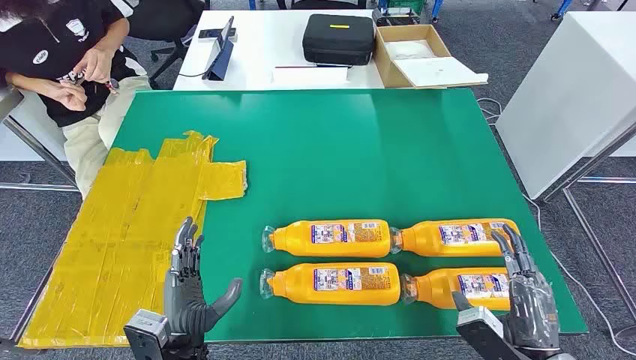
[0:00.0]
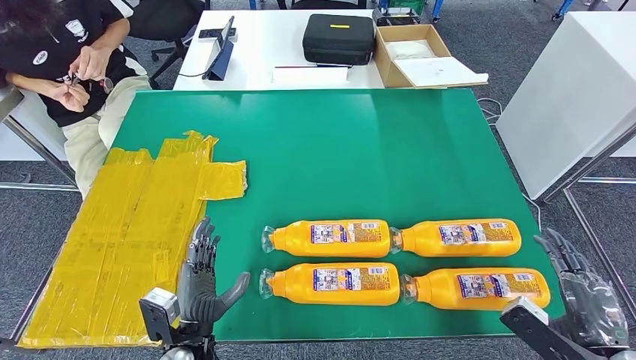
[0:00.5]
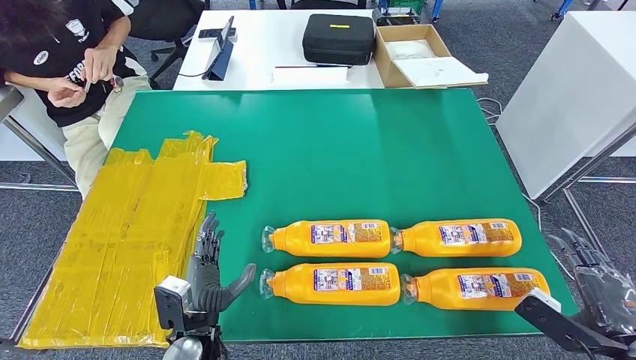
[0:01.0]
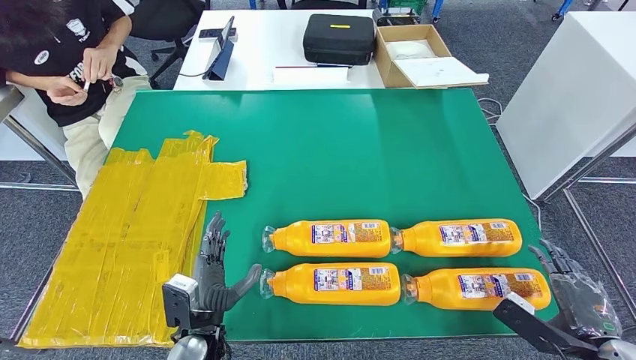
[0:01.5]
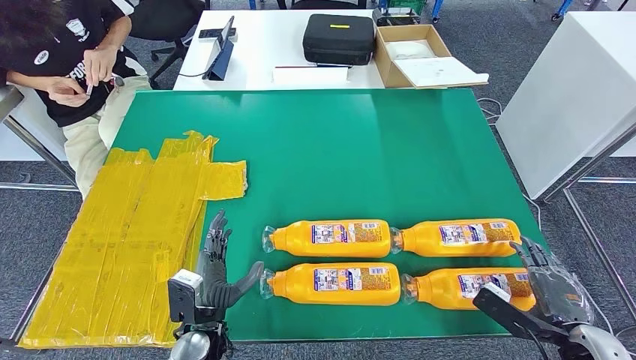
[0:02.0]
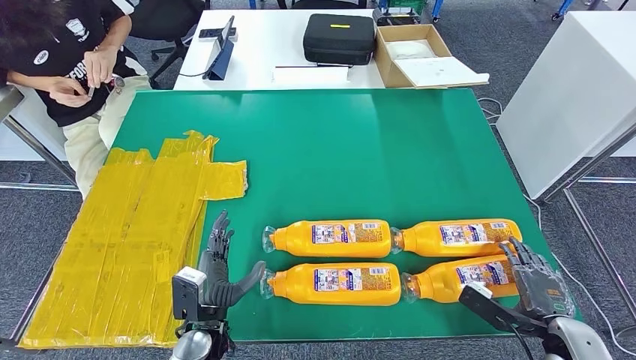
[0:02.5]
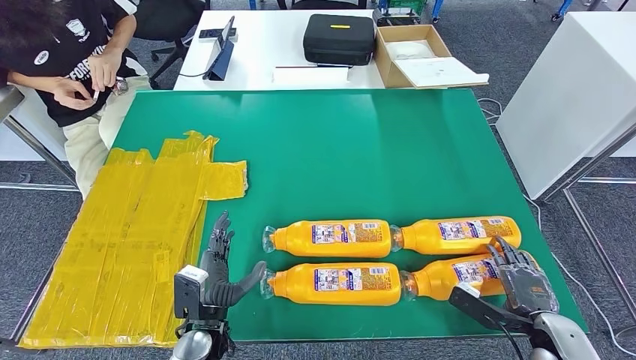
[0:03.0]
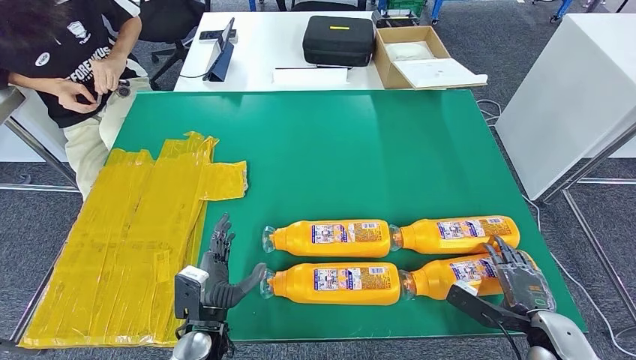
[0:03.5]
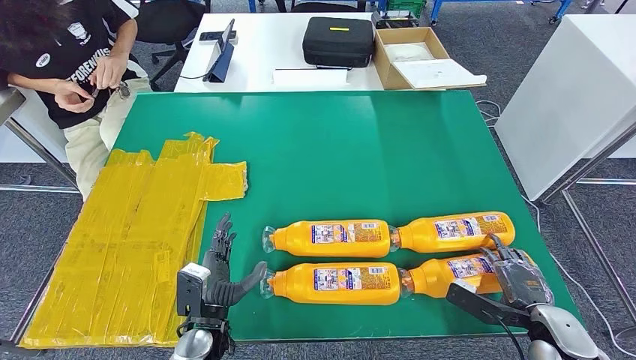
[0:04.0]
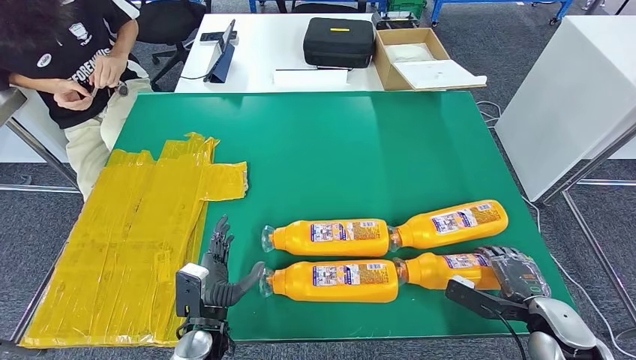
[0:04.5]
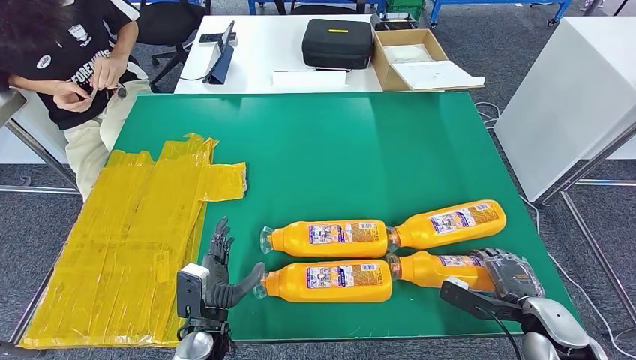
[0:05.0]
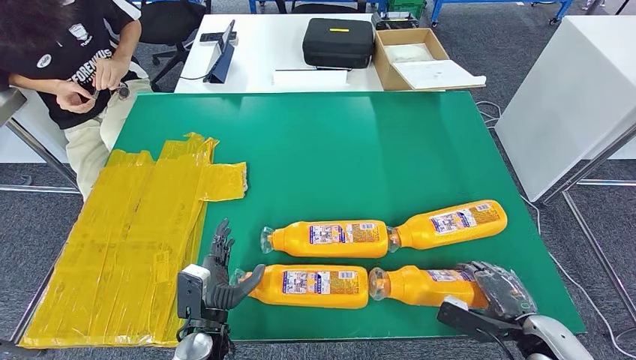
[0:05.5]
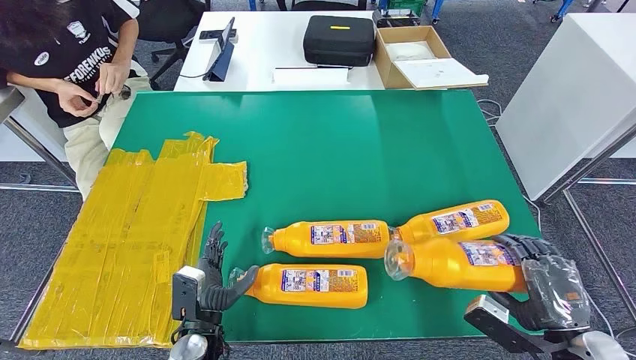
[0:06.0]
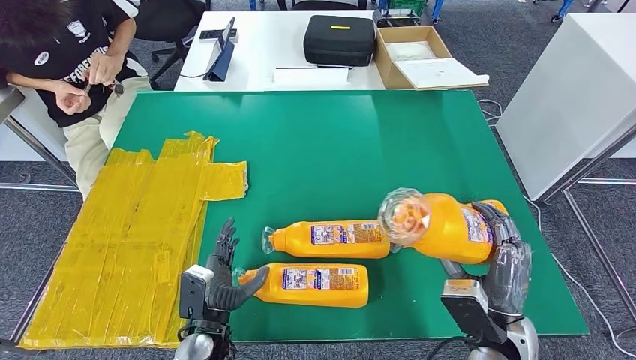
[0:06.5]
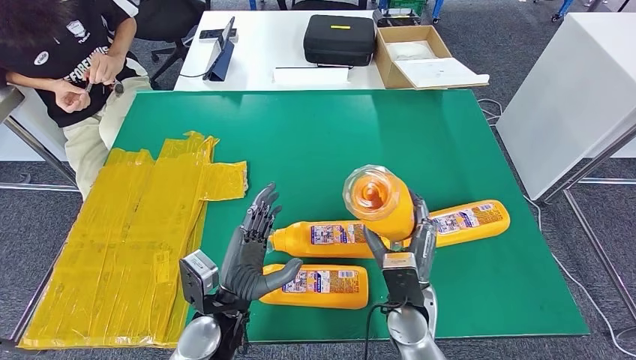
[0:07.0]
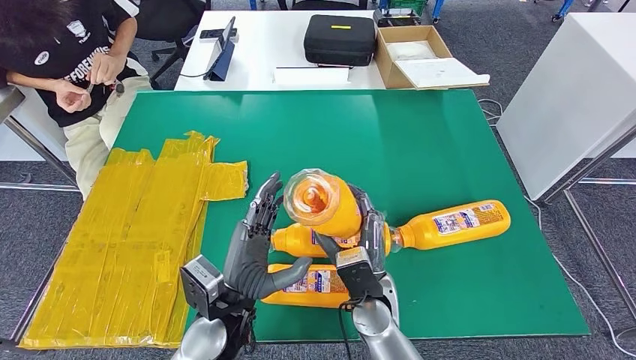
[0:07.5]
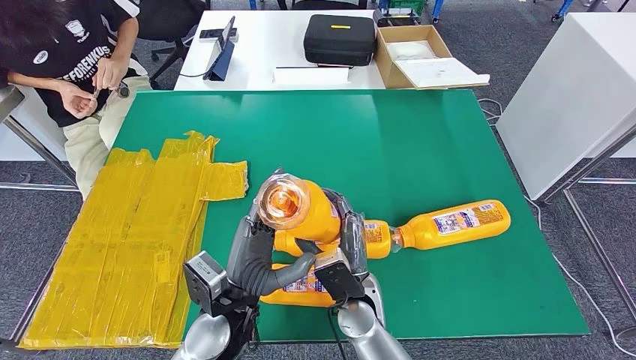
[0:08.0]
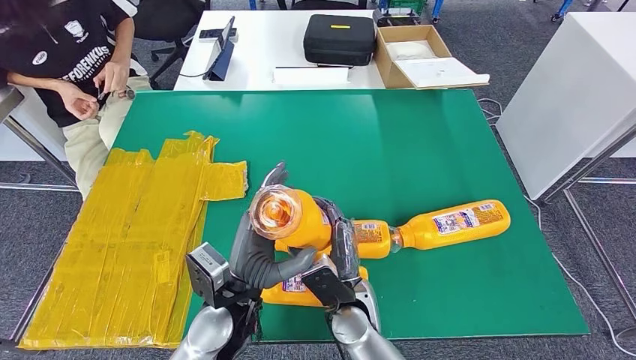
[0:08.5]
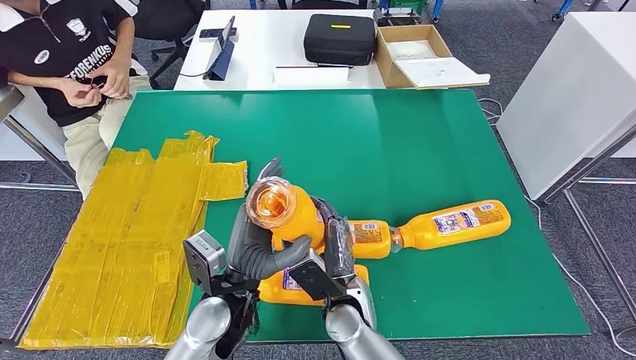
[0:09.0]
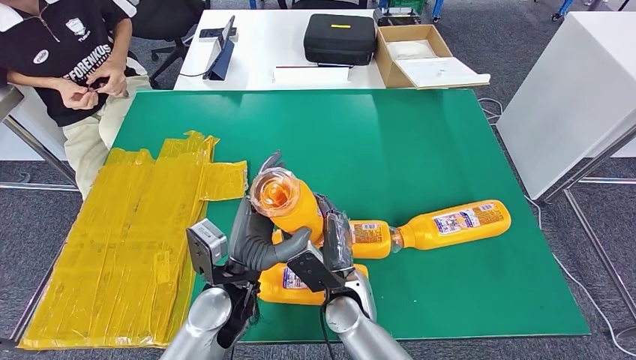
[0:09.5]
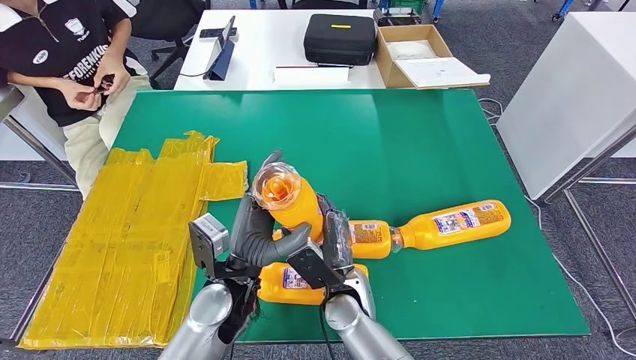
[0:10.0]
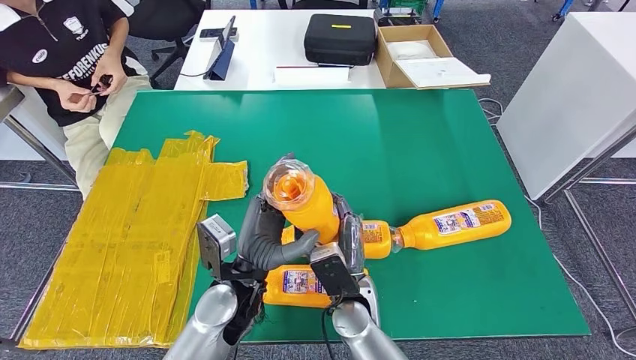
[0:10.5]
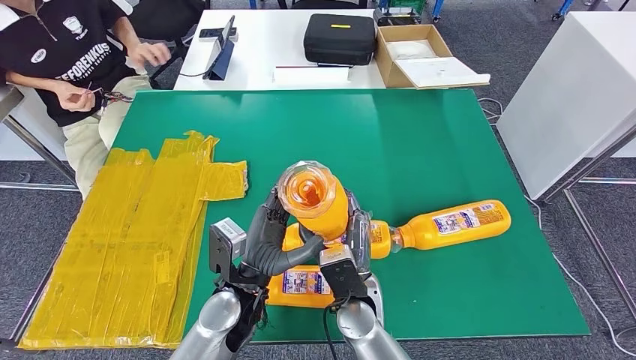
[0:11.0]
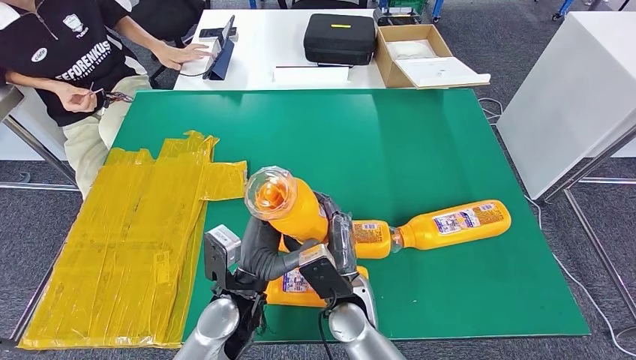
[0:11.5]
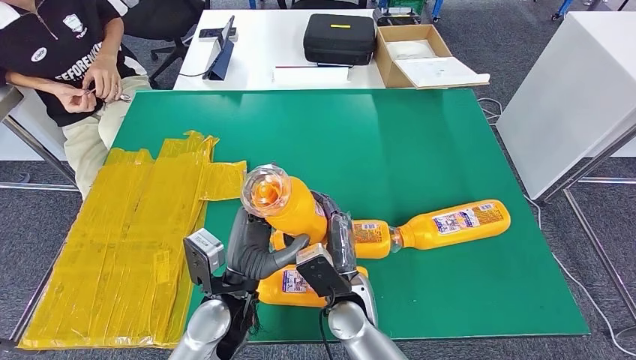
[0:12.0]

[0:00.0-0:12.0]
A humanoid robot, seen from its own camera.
Step, 0:00.0 to 0:07.0: Take the fast-moving consumer goods bottle from the table.
0:02.0 to 0:04.0: The right hand shifts by roughly 5 cm.
0:04.0 to 0:06.0: The right hand changes place by approximately 5 cm.
0:06.0 to 0:08.0: The left hand goes roughly 15 cm upward and to the right. The right hand moves to the left, approximately 35 cm.
0:08.0 to 0:12.0: There are only small adjustments of the hands.

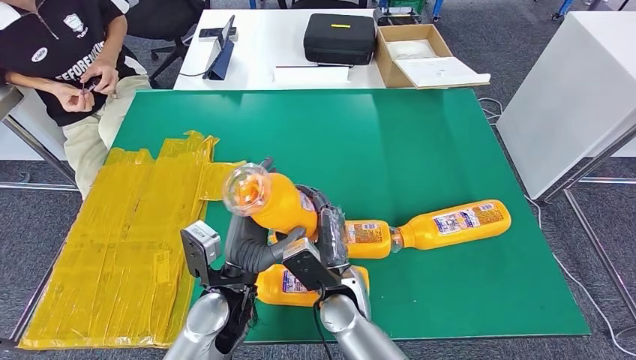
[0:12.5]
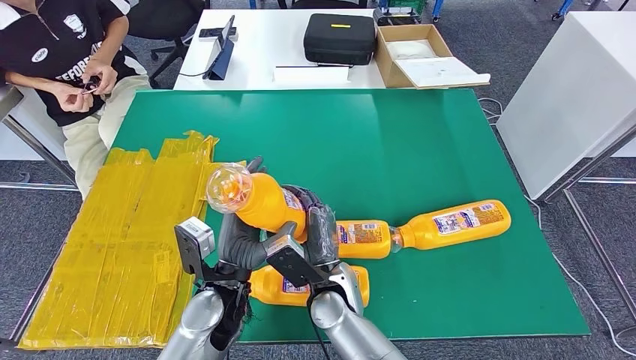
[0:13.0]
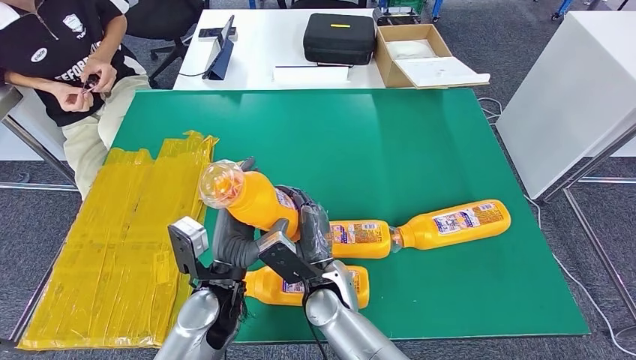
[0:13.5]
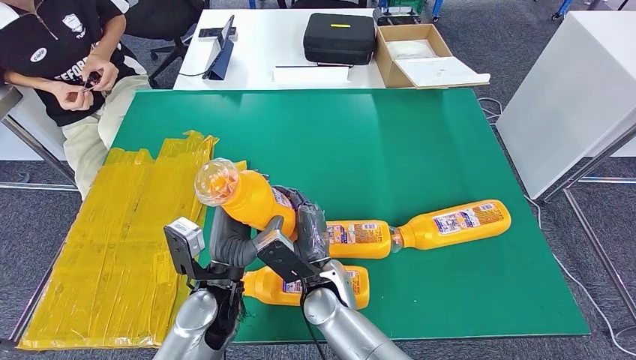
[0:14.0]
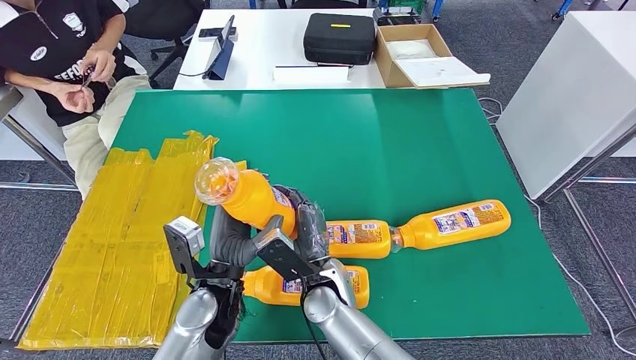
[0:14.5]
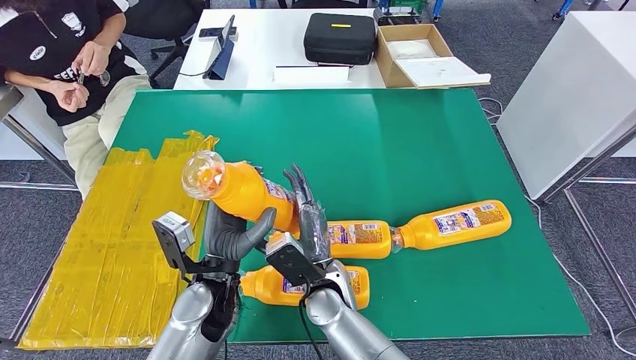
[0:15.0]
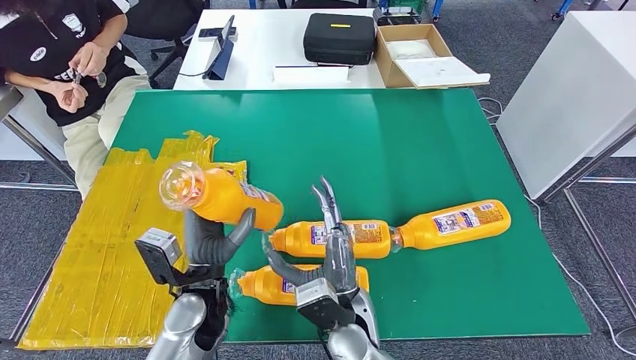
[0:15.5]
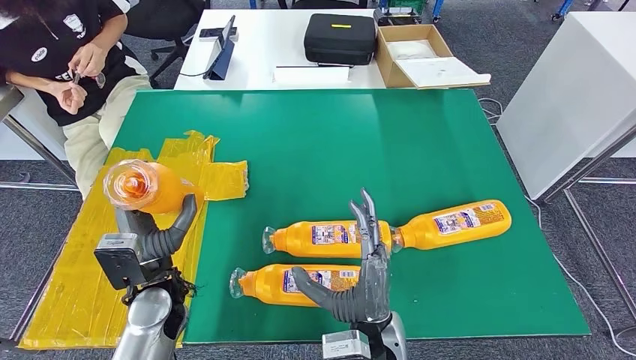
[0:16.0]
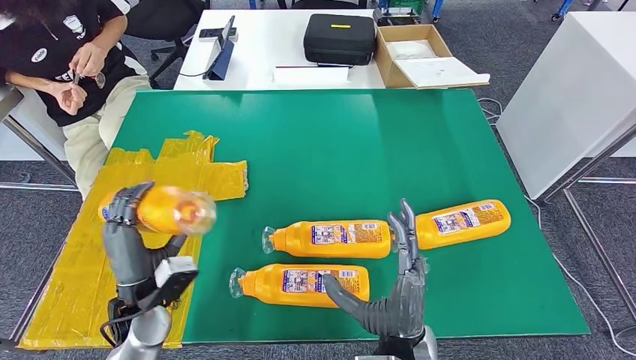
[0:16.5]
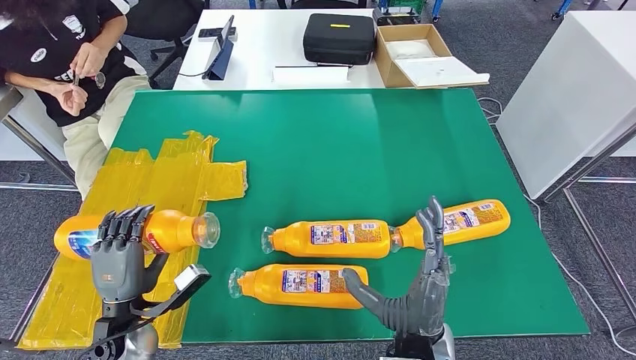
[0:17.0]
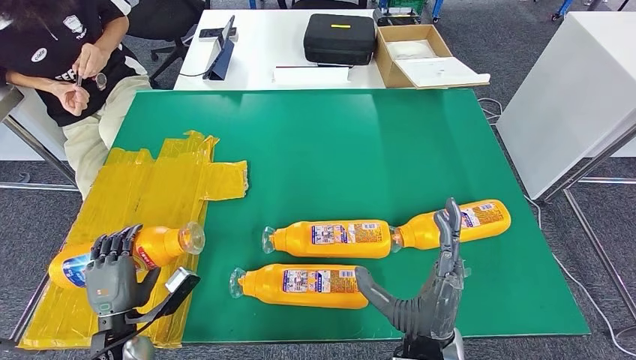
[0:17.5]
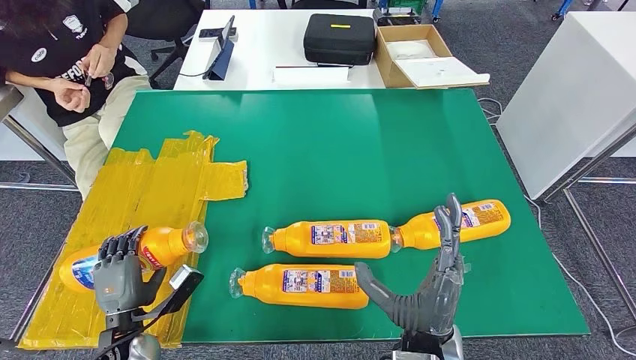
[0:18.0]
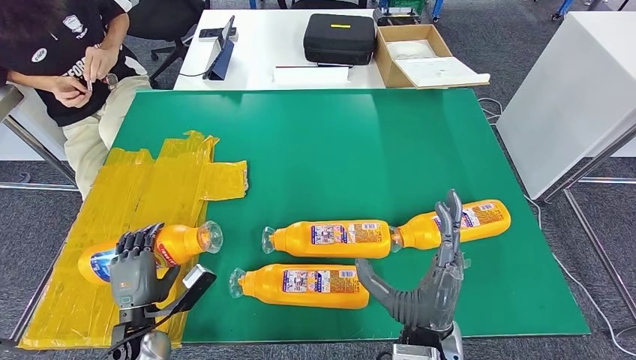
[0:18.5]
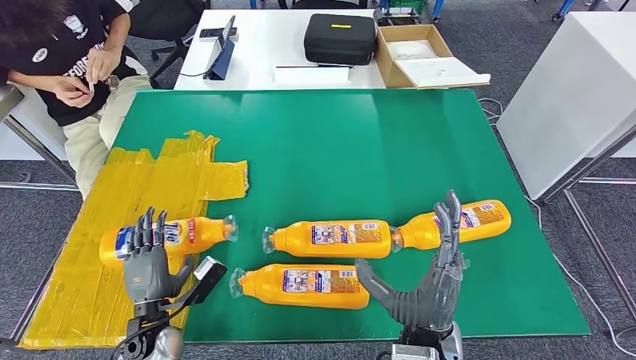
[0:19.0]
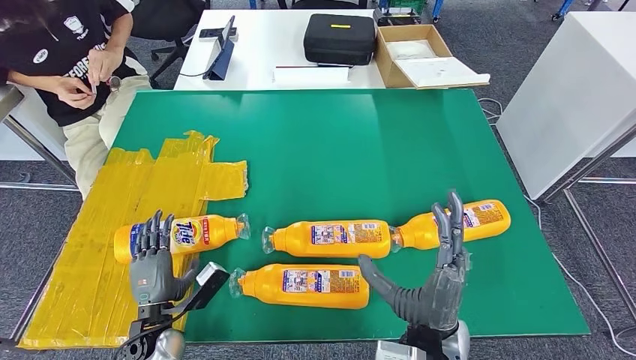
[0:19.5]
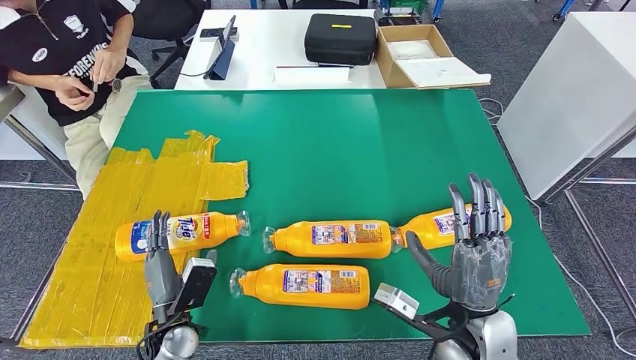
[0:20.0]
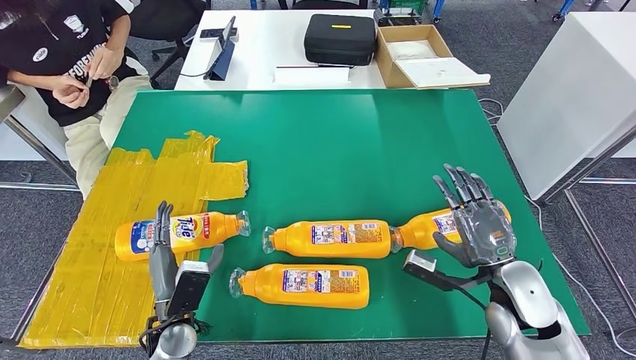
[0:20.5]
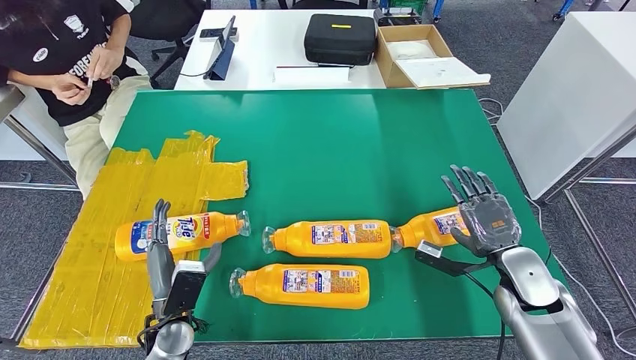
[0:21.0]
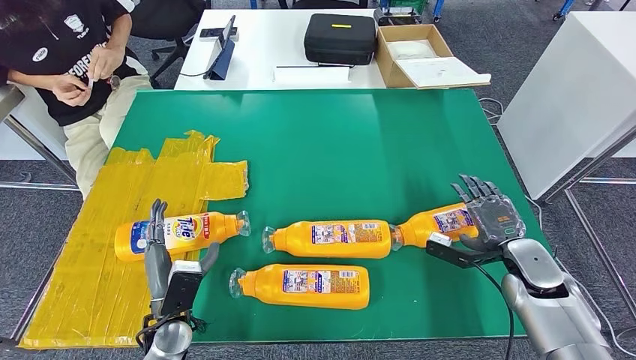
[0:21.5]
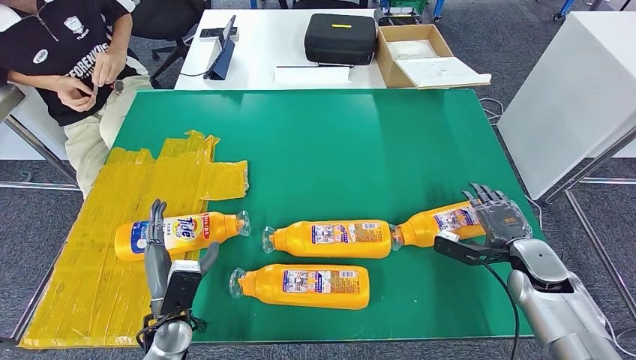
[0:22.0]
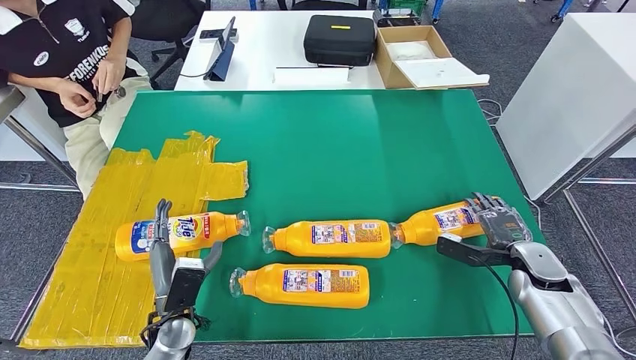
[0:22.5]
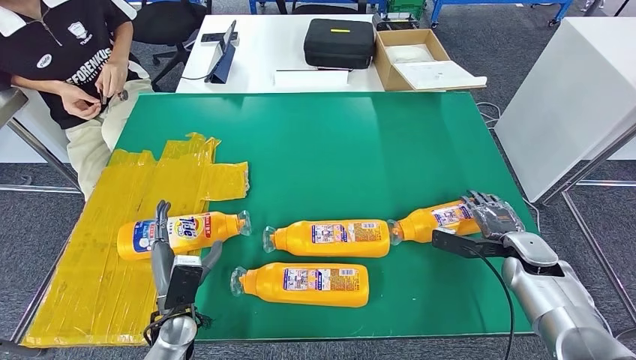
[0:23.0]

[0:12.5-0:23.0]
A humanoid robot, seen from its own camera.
Step, 0:12.5 to 0:16.5: Flip the fast-moving consumer goods bottle to the front side.
0:12.5 to 0:14.5: There are only small adjustments of the hands.
0:14.5 to 0:16.5: The left hand shifts some 15 cm to the left; the right hand moves backward and to the right, roughly 15 cm.
0:16.5 to 0:19.0: The left hand shifts roughly 10 cm downward.
0:19.0 to 0:21.0: The right hand goes some 25 cm to the right and forward.
